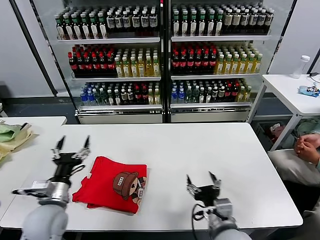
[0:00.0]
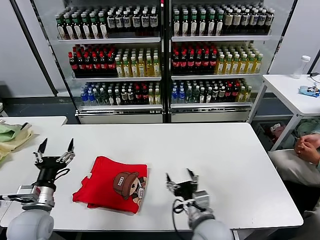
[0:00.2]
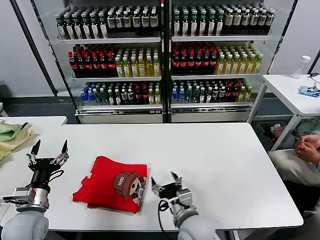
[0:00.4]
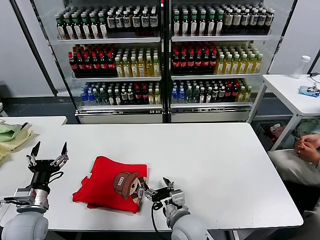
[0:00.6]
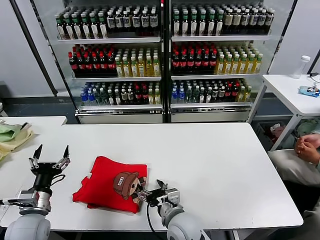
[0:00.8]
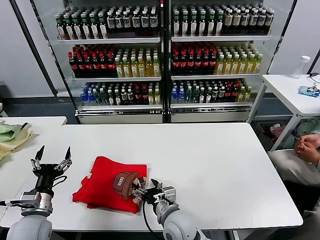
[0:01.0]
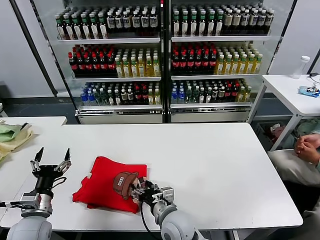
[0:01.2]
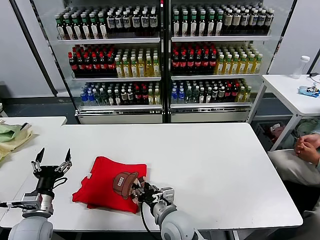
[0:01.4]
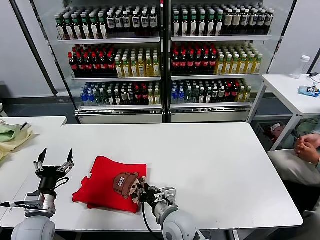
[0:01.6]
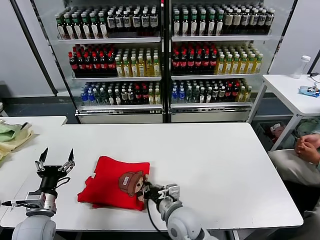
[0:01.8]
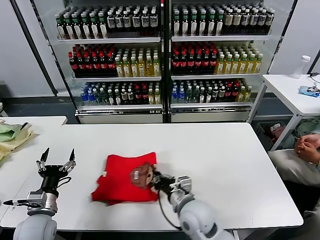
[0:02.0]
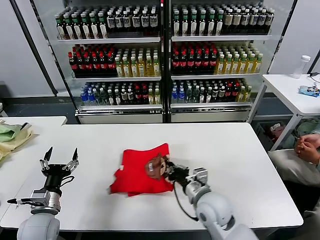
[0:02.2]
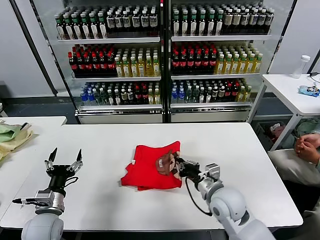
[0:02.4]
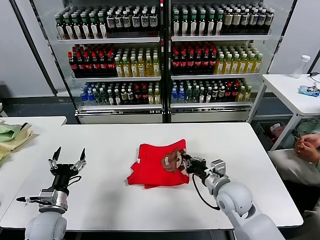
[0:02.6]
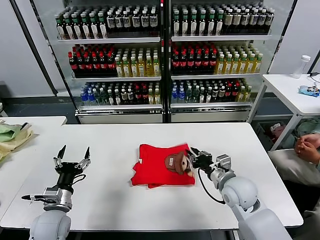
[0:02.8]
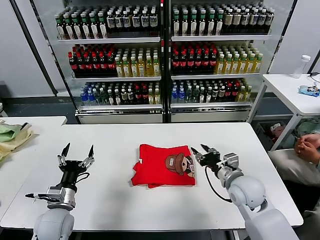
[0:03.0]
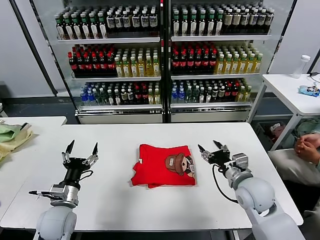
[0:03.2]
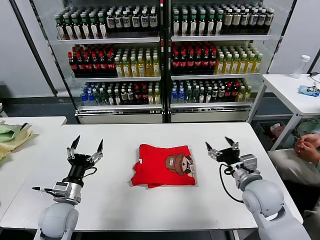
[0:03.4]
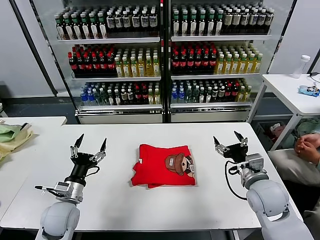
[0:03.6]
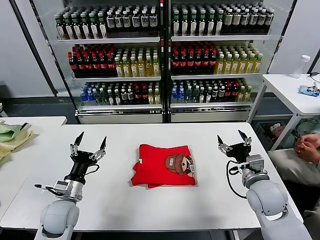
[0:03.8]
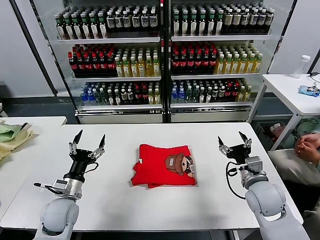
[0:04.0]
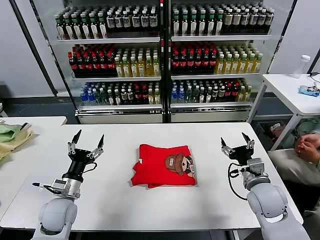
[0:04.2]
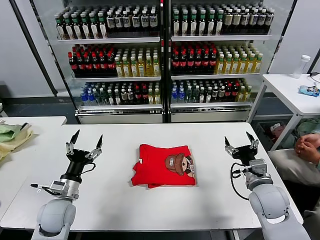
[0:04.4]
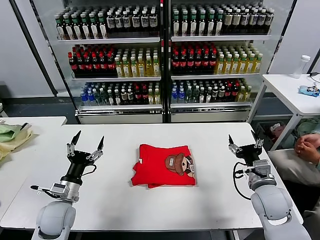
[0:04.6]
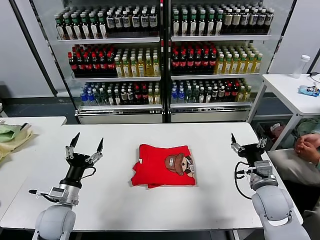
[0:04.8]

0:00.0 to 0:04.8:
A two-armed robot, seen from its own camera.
Task of the whole recording: fold and organize the clothes.
Step, 0:00.0 to 0:02.8: Drag the clothes to the center of the table.
0:00.0 to 0:01.6: The left gripper is displaced to the left by some 5 cm. The right gripper shifts approximately 15 cm to the left, forward and downward, and closes.
0:01.6 to 0:03.2: The right gripper goes some 20 cm to the right, and opens up. The left gripper moves to the right, roughly 5 cm.
0:03.2 to 0:04.8: The right gripper moves some 5 cm.
